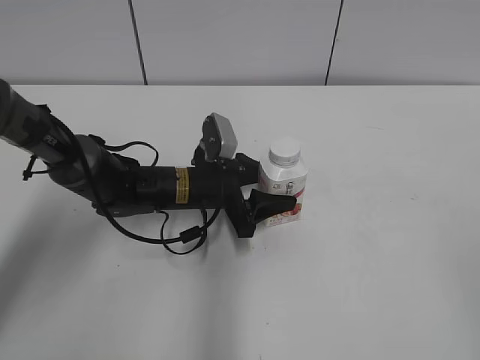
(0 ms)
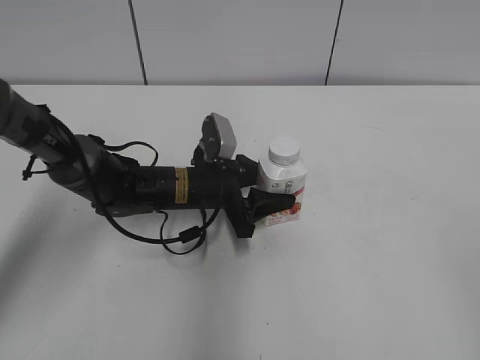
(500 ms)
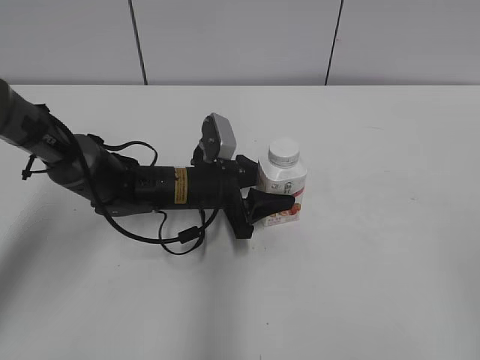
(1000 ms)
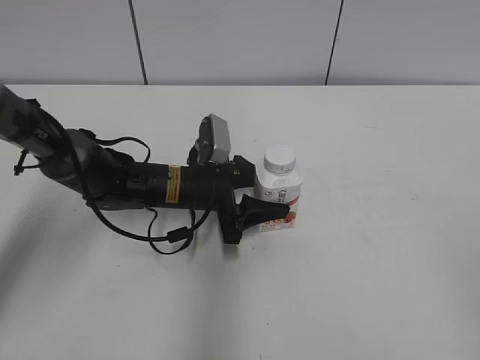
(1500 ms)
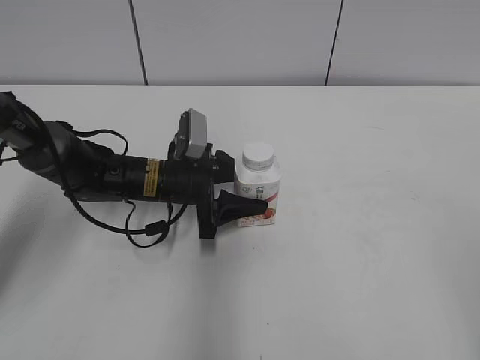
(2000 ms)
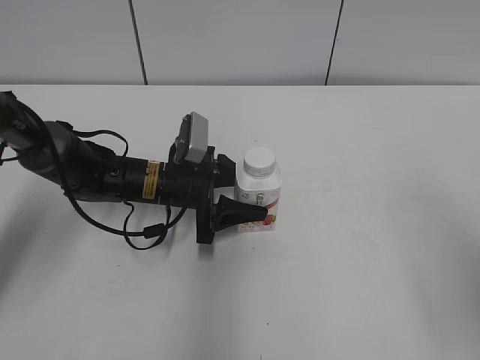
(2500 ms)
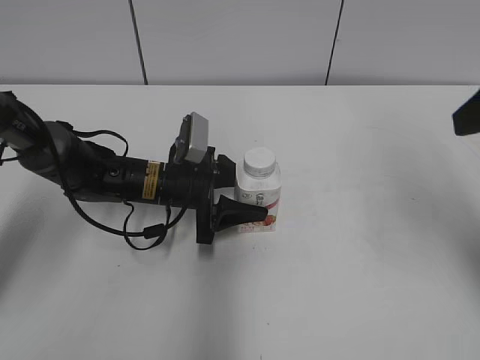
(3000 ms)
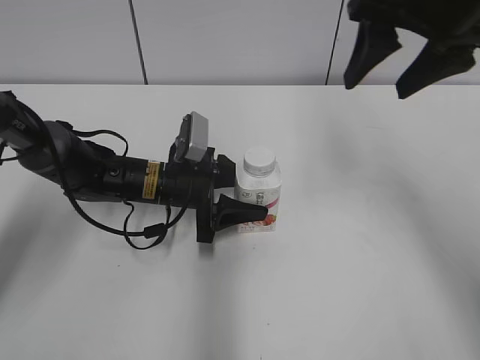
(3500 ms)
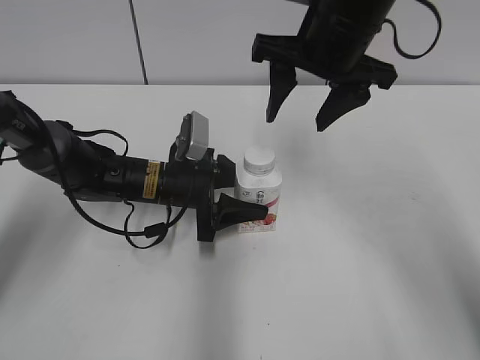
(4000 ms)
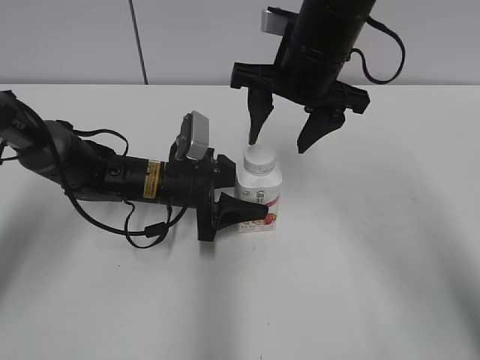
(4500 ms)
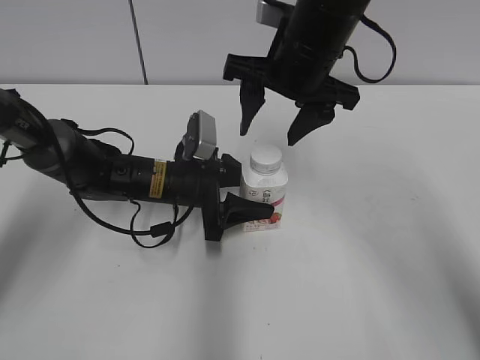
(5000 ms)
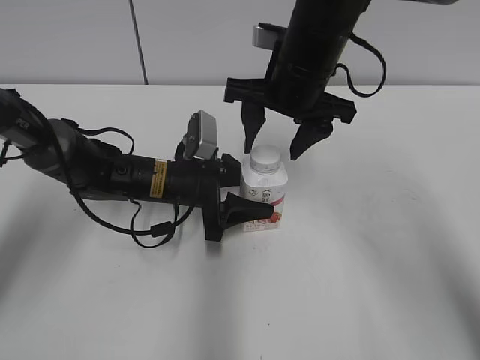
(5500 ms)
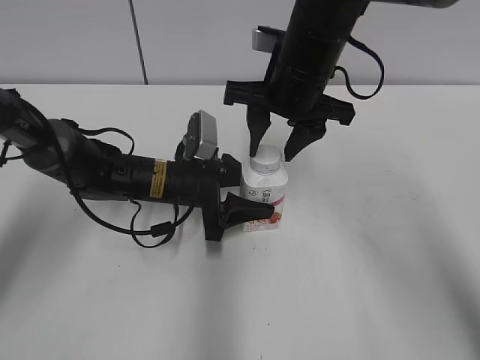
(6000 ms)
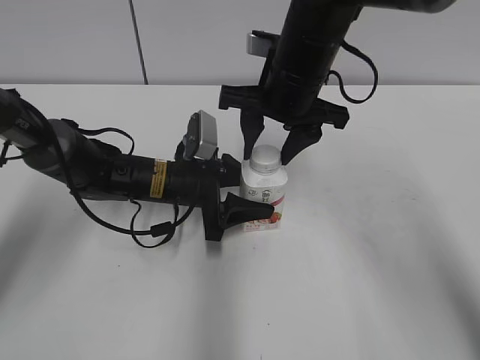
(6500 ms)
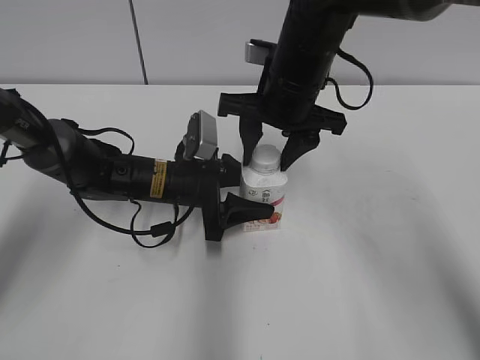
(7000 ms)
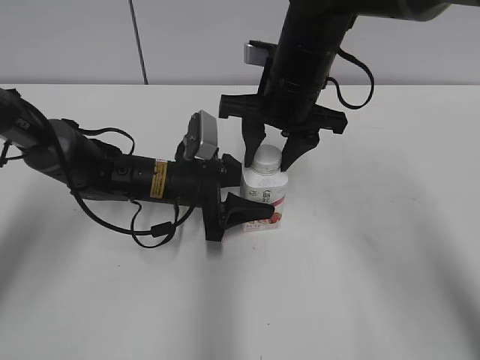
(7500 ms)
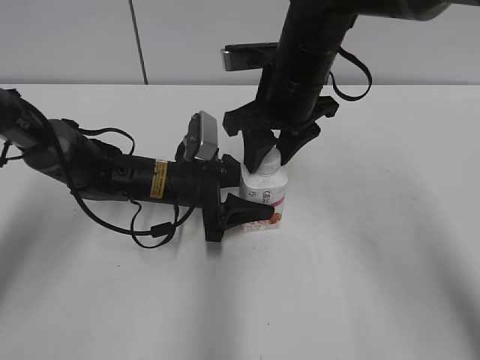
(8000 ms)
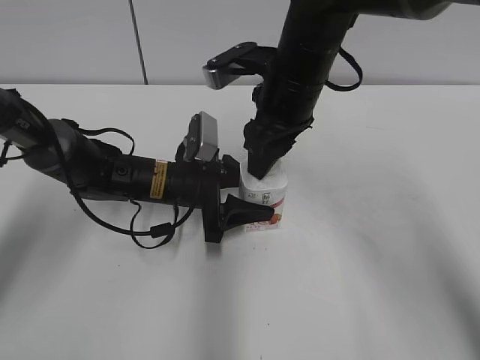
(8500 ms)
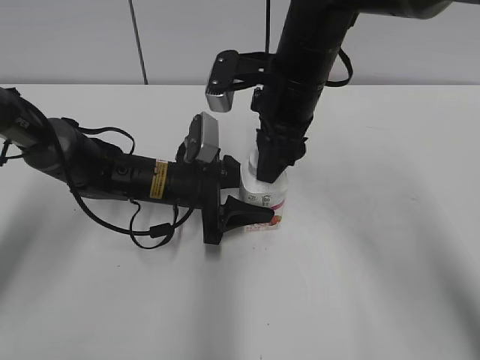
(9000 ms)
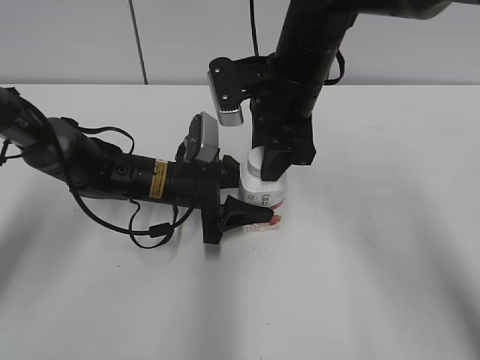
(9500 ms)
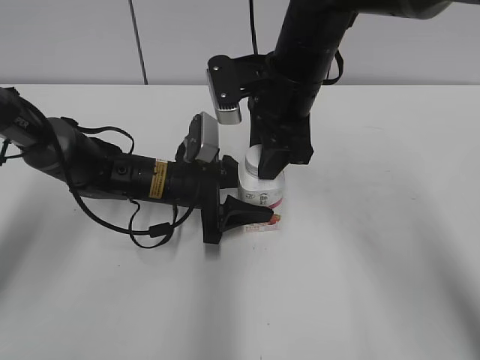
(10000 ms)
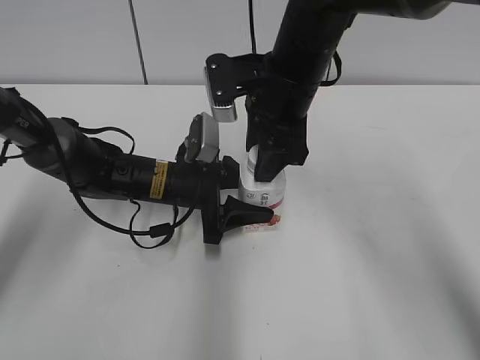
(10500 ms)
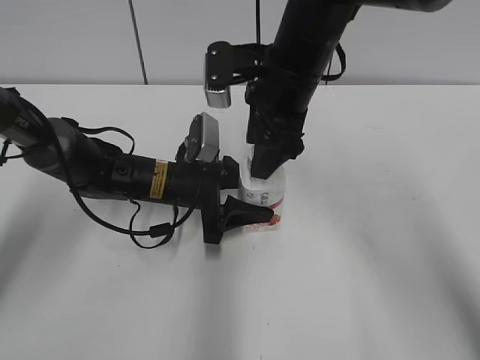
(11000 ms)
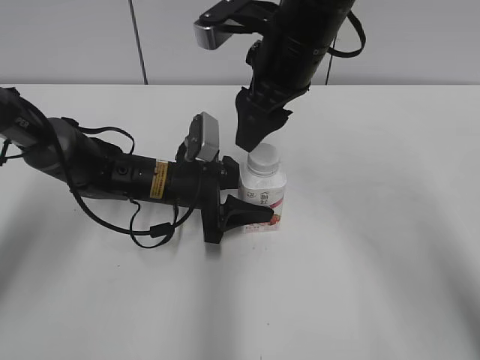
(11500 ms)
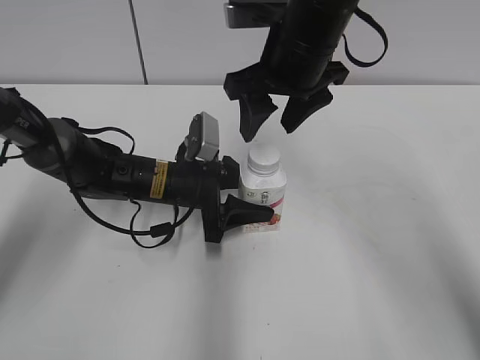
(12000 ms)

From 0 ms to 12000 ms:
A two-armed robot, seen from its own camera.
Step, from 1000 ms to 2000 ms: Move the Yili Changqing from right to left.
From 0 ms to 2000 ms: The grippers make only small movements.
From 2000 ms to 4000 ms: The right gripper heads forward and to the left, covering approximately 40 cm.
From 4000 ms to 6000 ms: The right gripper moves downward, approximately 5 cm, and closes.
From 10000 ms to 12000 ms: The right gripper opens up.

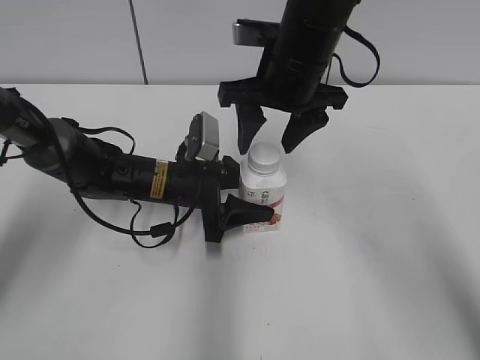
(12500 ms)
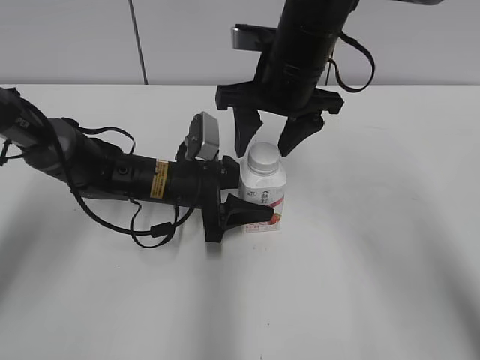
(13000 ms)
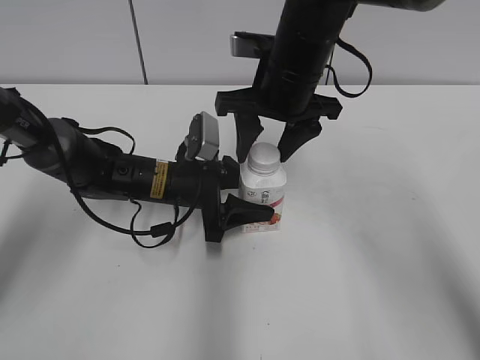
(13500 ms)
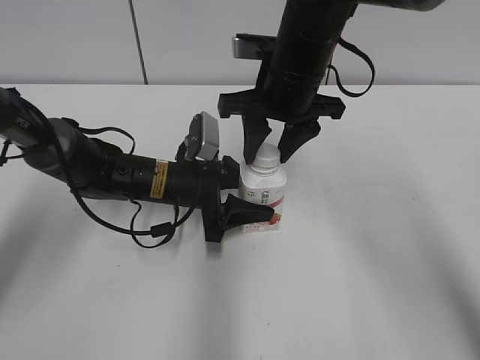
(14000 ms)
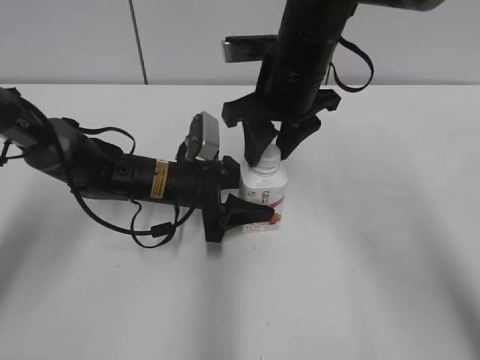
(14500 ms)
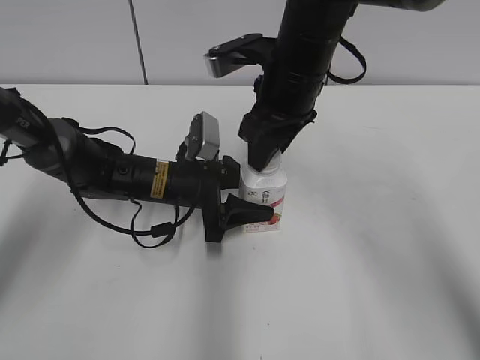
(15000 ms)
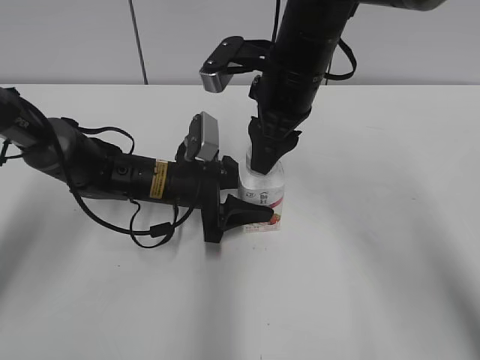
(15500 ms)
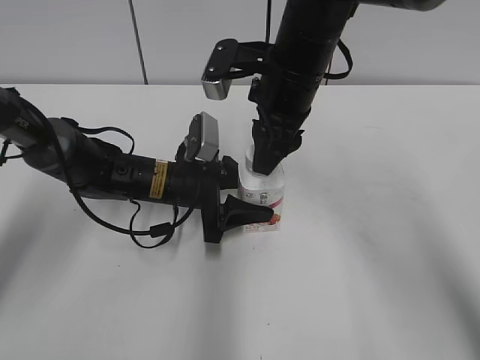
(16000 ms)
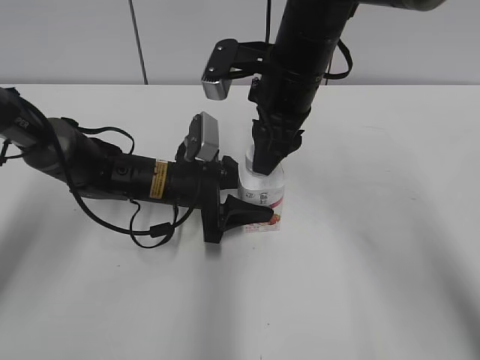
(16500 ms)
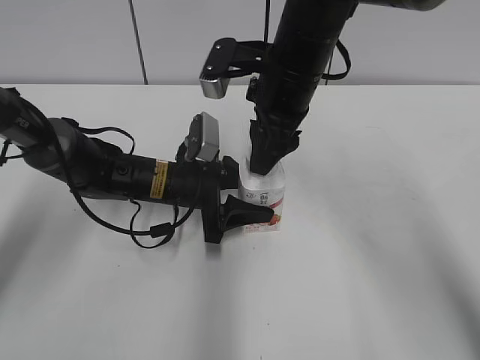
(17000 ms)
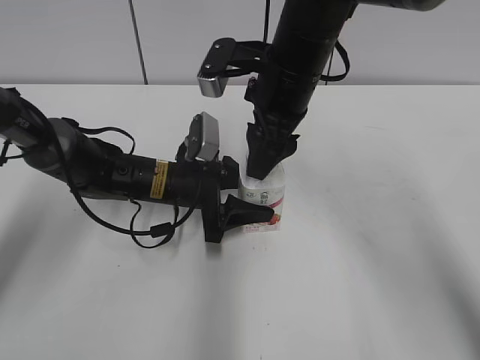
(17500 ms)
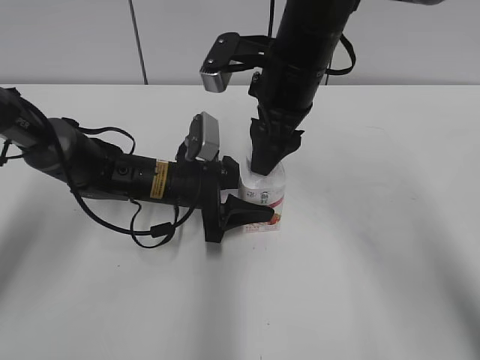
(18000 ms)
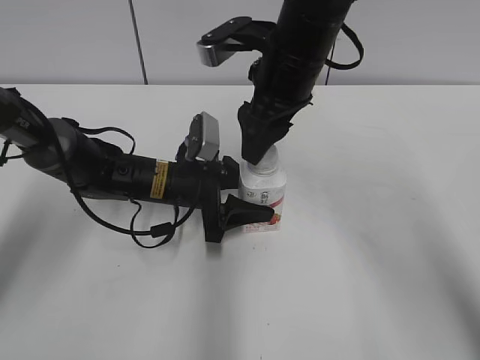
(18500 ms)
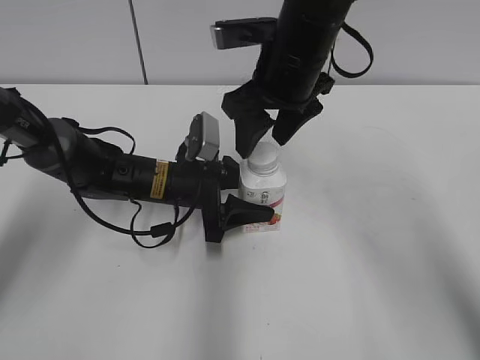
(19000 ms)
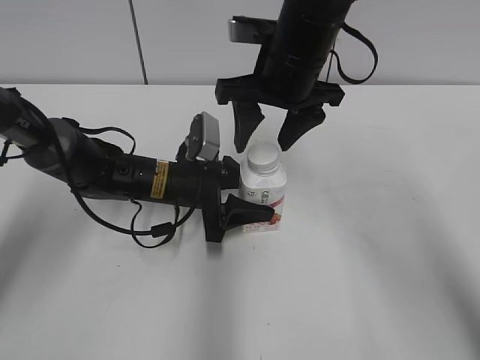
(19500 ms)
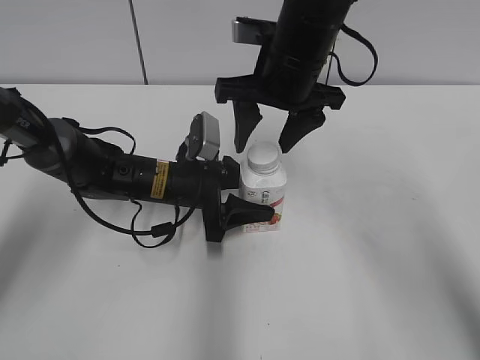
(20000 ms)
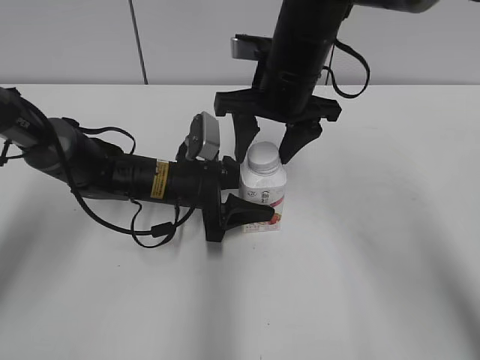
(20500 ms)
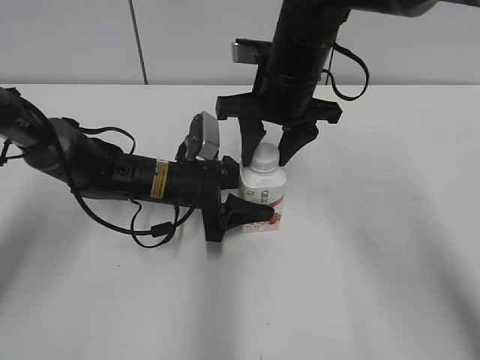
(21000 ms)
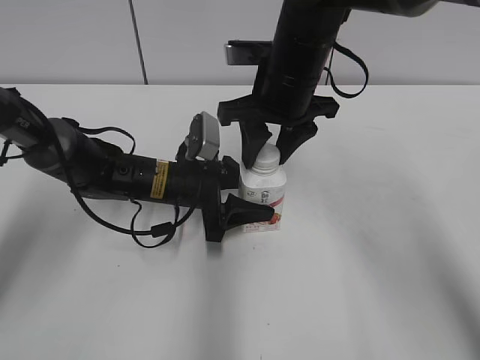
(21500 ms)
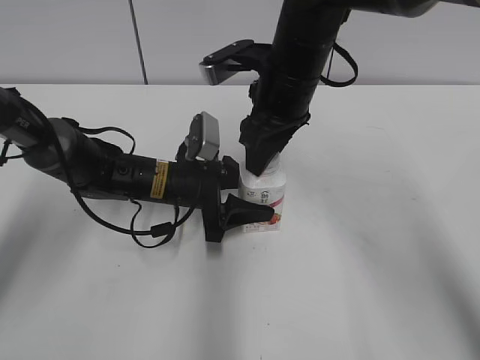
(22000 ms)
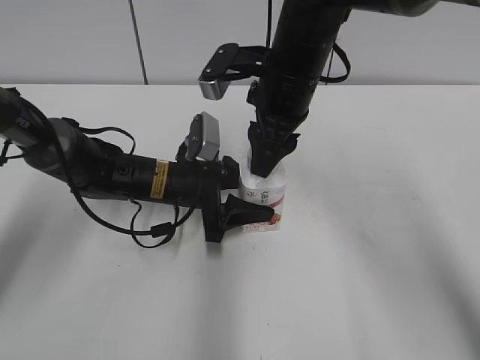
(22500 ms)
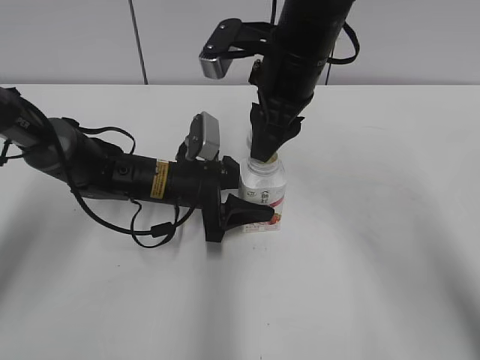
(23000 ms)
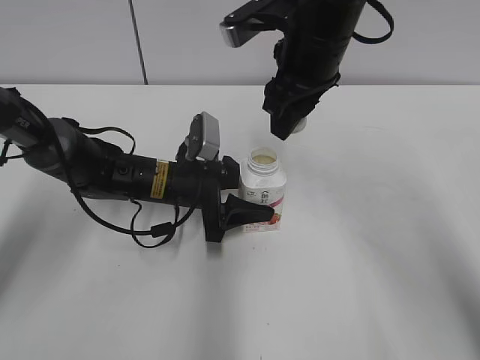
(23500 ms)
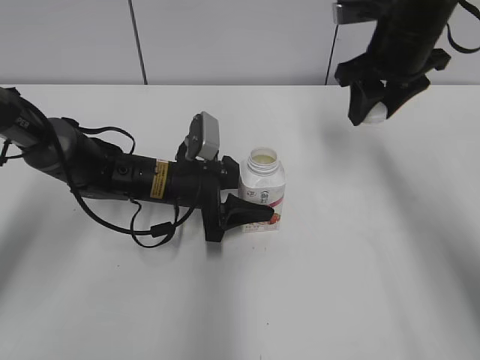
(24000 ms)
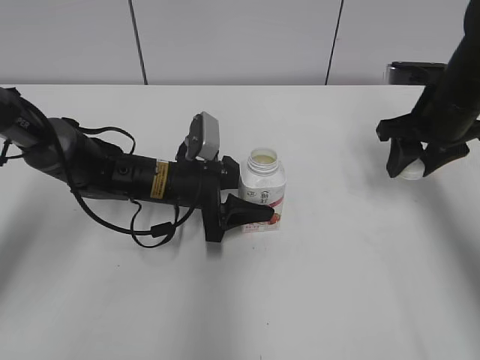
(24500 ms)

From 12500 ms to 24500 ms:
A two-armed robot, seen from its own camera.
From 12500 ms to 14500 ms: The right gripper closes.
From 16500 ms to 18500 ms: The right gripper opens up.
From 20500 ms to 22500 ms: The right gripper closes.
From 22500 ms to 24500 ms: The right gripper goes some 20 cm to the right.

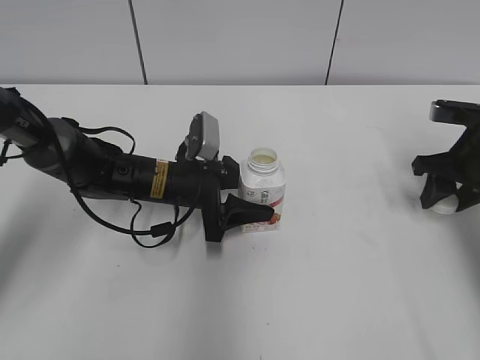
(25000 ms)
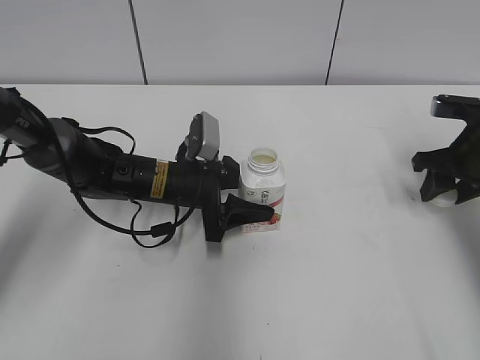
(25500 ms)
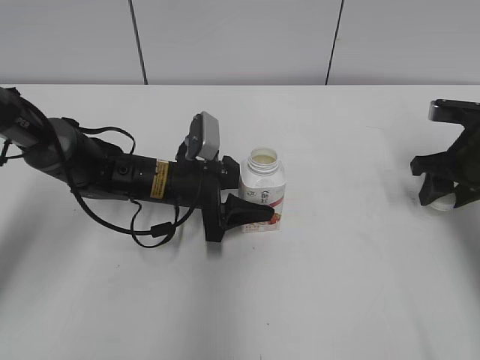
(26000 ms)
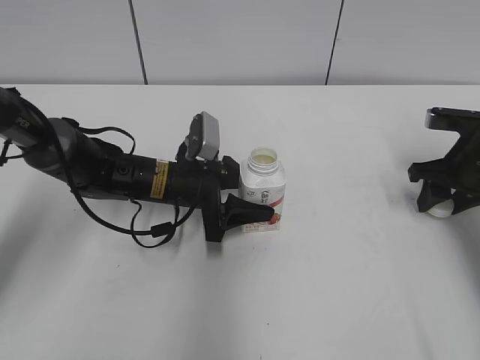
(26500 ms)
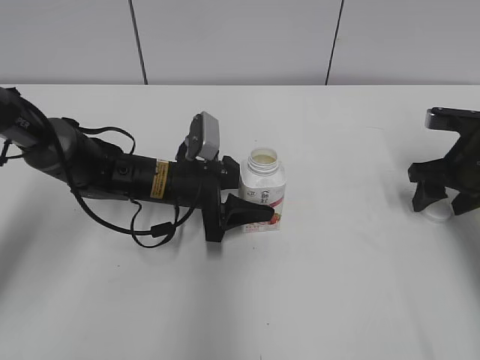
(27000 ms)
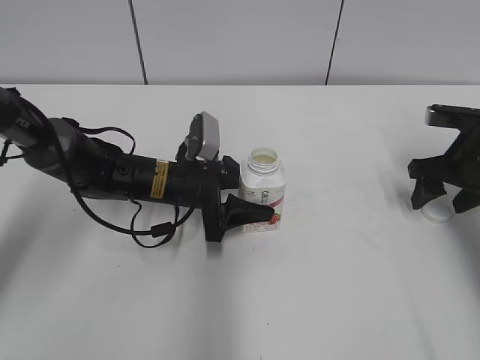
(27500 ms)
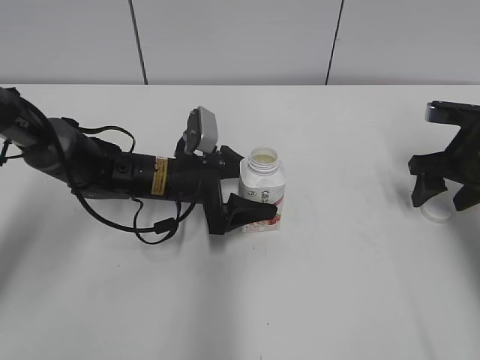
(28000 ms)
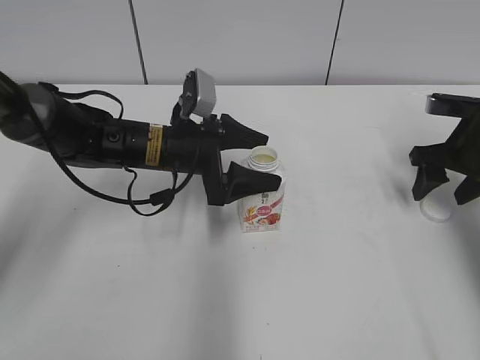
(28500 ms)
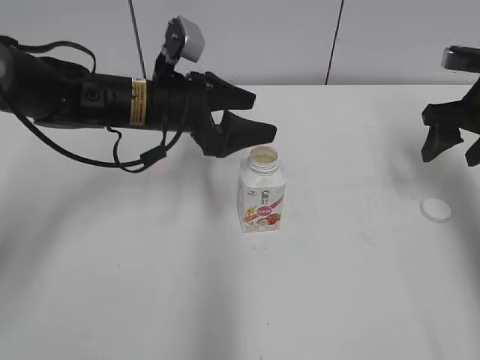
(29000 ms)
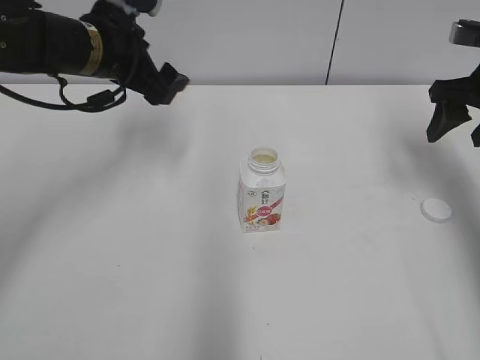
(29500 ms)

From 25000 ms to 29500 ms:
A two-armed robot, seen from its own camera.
Step, from 25000 ms to 27000 ms: Place the bottle cap on the right.
Step, from 27500 ms to 28000 ms: Place the Yili Changqing with the left hand.
From 25000 ms to 27000 ms: The right gripper opens its fingers.
From 27000 ms to 29500 ms: The right gripper travels upward by approximately 10 cm. The left gripper travels upward and to the left by some 20 cm, and opens up.
